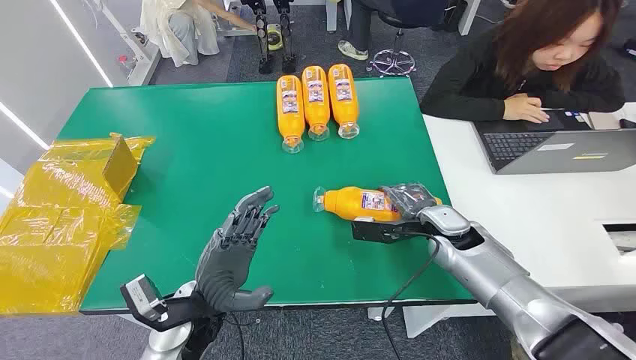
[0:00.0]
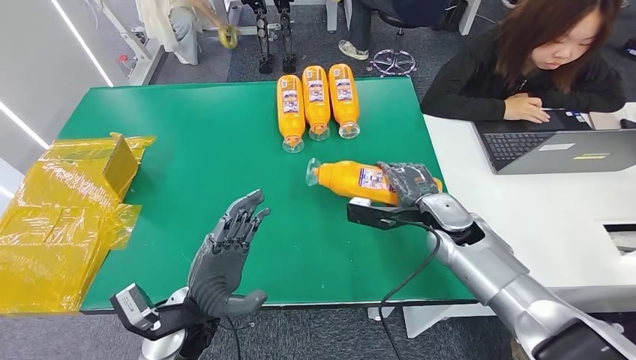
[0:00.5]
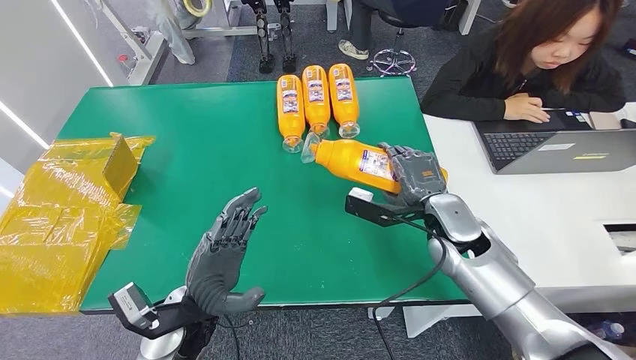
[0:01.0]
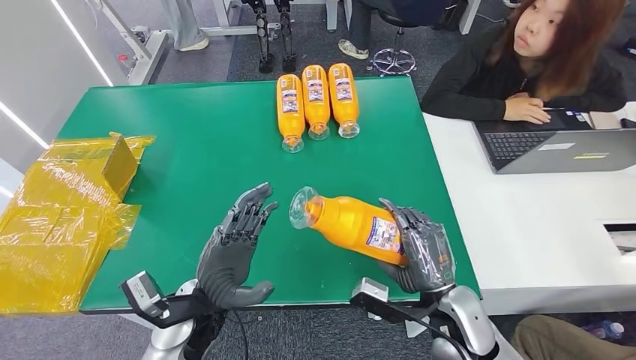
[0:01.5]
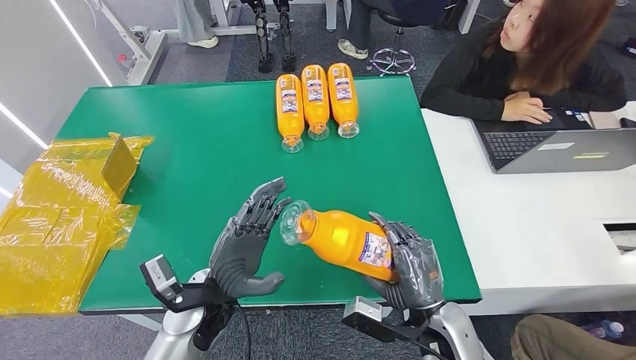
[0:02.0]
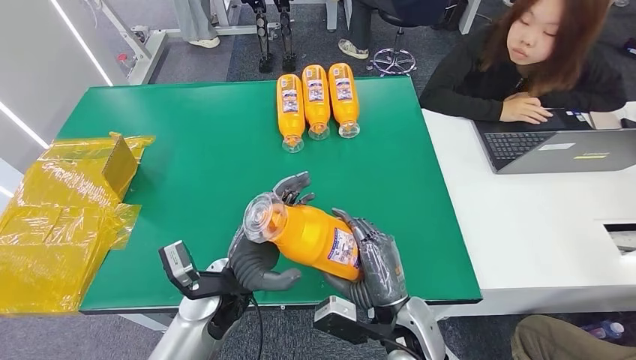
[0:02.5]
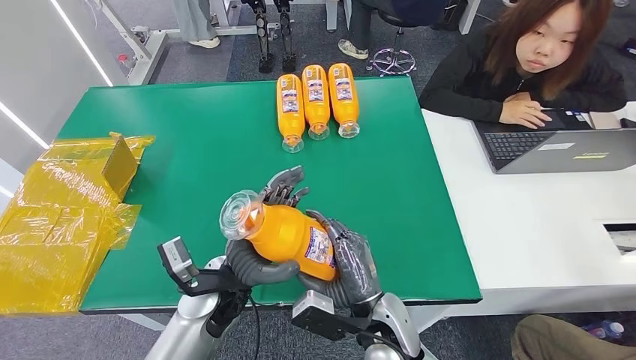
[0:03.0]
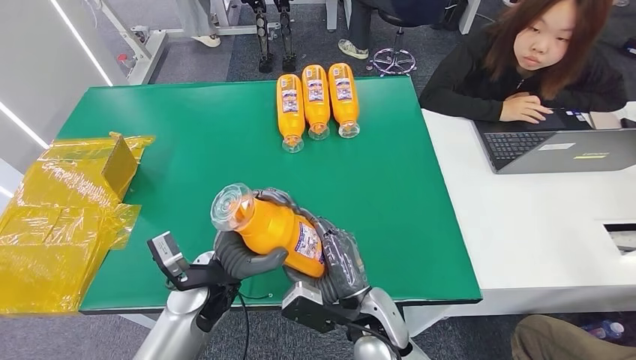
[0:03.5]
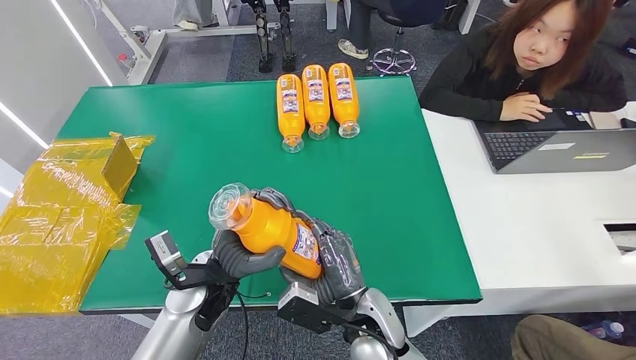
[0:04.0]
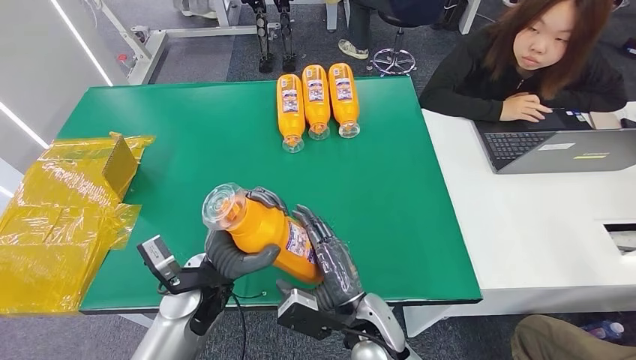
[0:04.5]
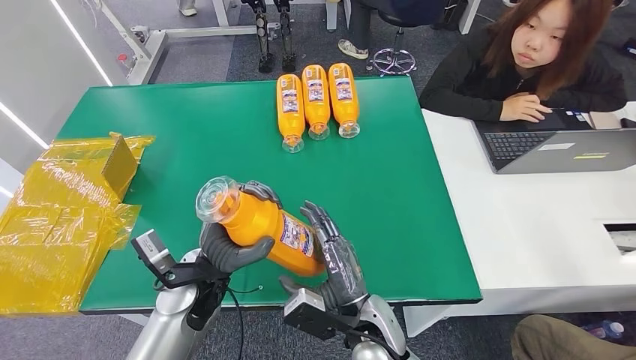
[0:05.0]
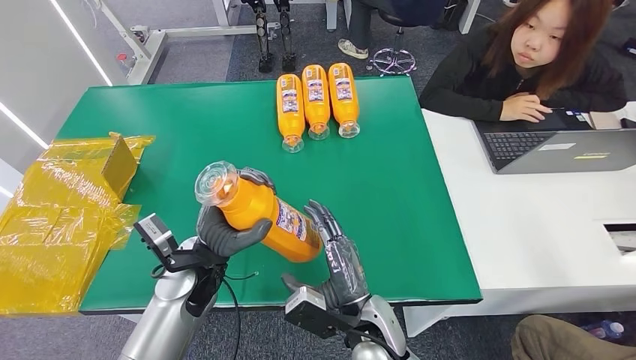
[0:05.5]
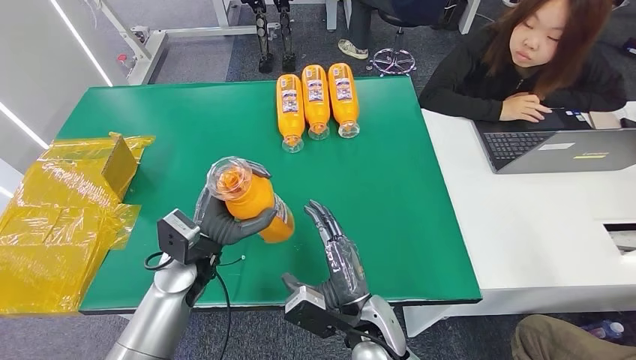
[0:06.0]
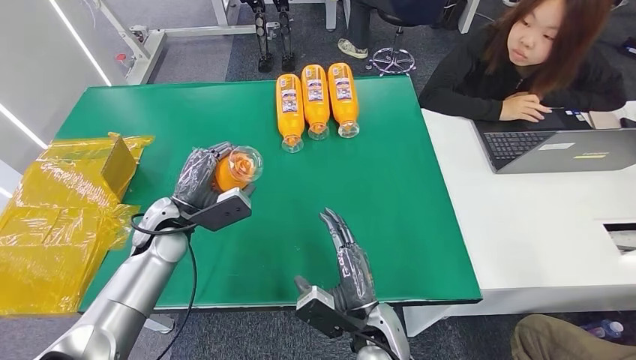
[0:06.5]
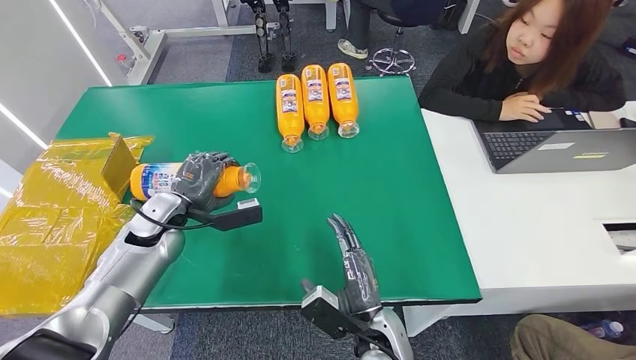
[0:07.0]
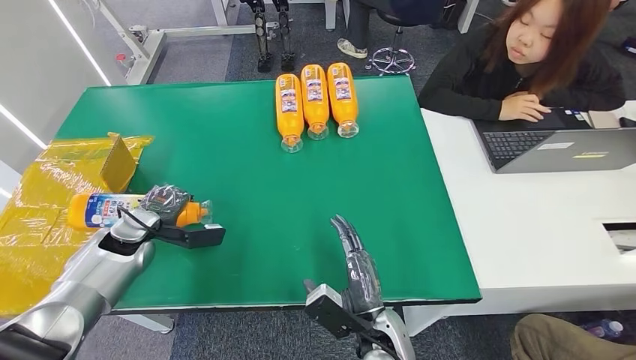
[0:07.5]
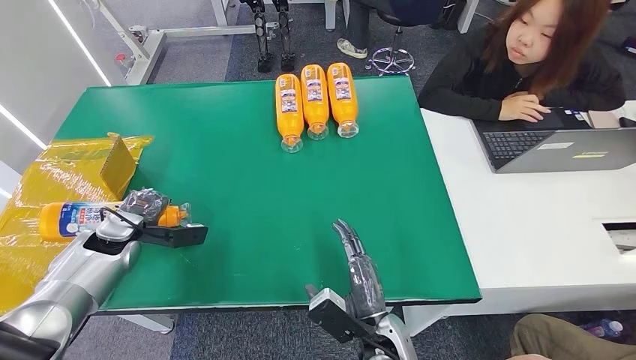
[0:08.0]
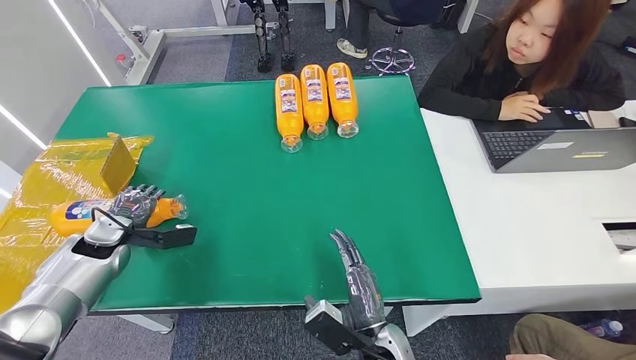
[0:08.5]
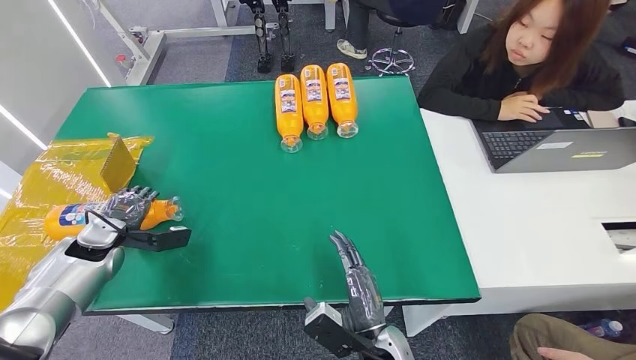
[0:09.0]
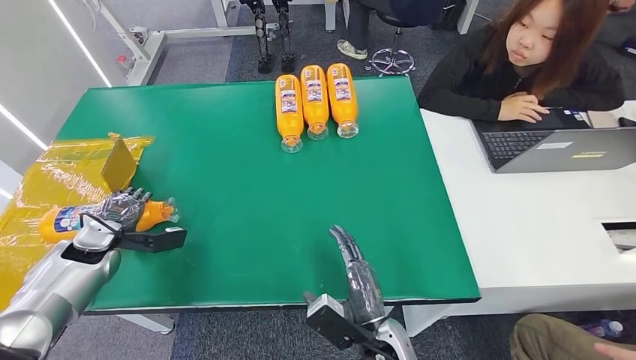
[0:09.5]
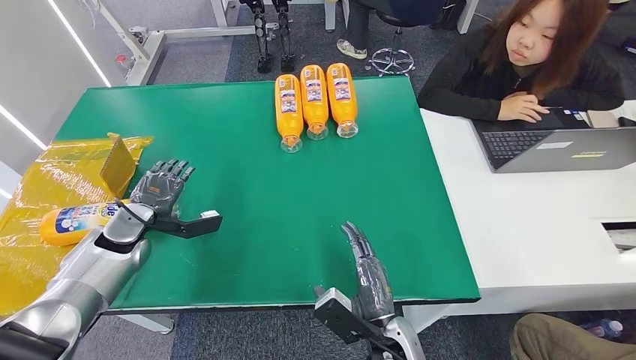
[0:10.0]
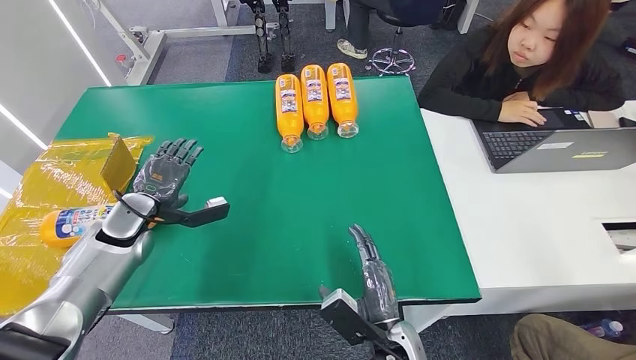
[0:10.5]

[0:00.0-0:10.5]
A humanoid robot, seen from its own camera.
Step, 0:00.0 to 0:05.0: Pick up the bottle from the table.
0:02.0 to 0:04.0: The right hand is displaced to the left by approximately 10 cm.
0:04.0 to 0:06.5: The left hand goes about 15 cm to the left and forward.
0:06.5 to 0:08.5: The left hand heads to the left, covering roughly 15 cm.
0:08.5 to 0:10.5: The left hand moves to the right, approximately 5 cm.

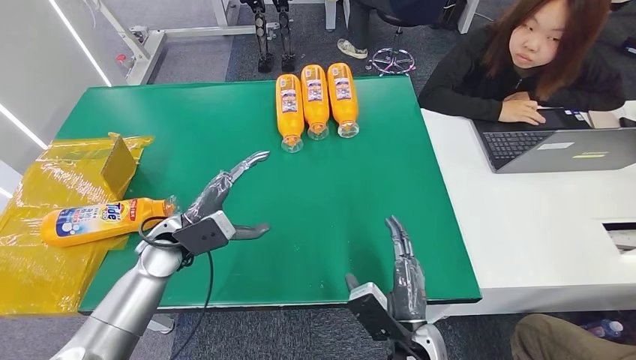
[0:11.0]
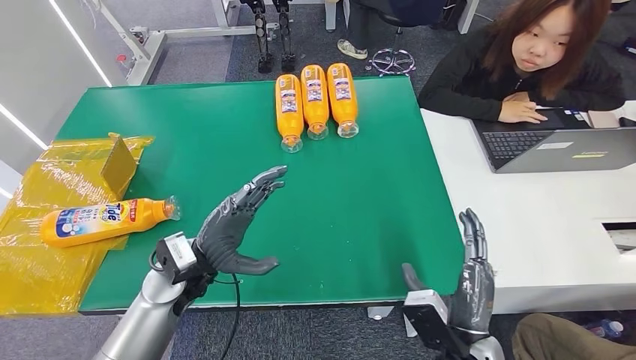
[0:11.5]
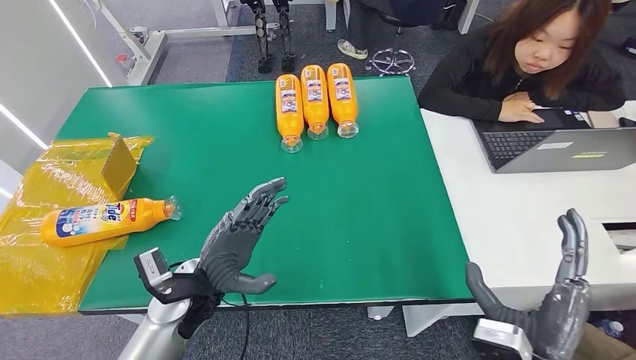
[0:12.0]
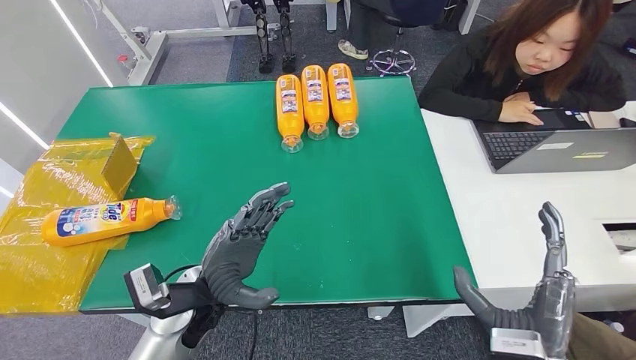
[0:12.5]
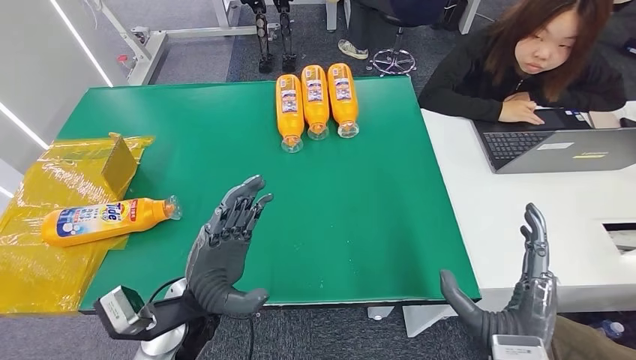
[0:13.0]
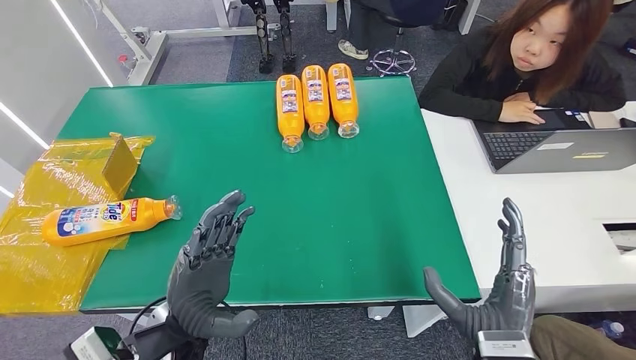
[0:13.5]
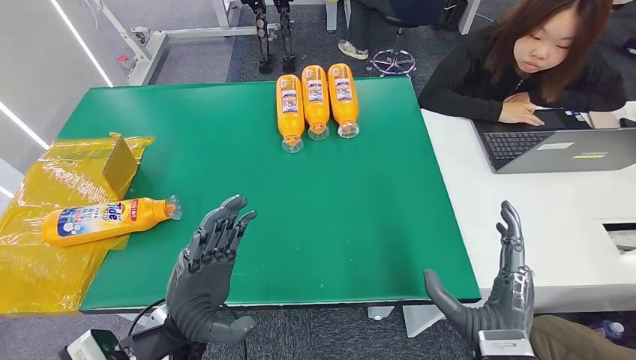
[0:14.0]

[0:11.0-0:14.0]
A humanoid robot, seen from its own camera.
Step, 0:11.0 to 0:14.0: Turn the bottle to the front side.
0:11.0 to 0:12.5: The left hand moves backward and to the right, roughly 10 cm, while the right hand is displaced to the right and upward by approximately 15 cm.
0:12.5 to 0:14.0: The left hand travels backward by approximately 5 cm.

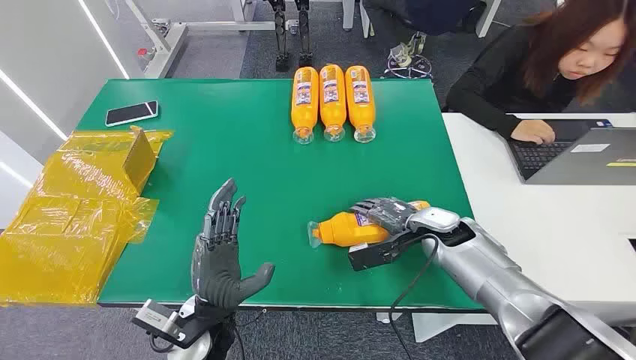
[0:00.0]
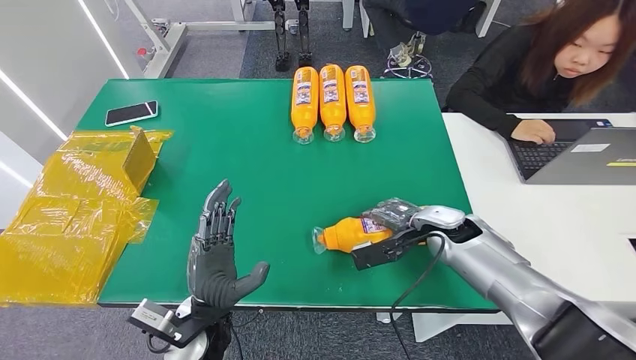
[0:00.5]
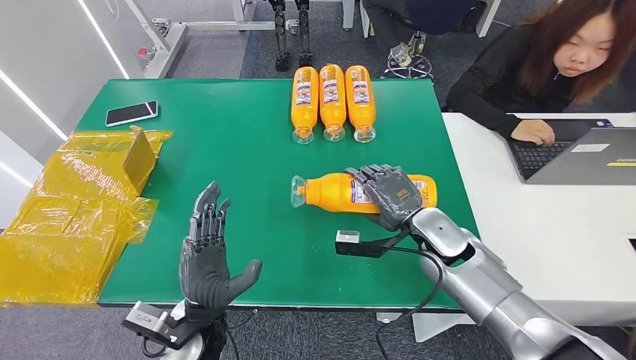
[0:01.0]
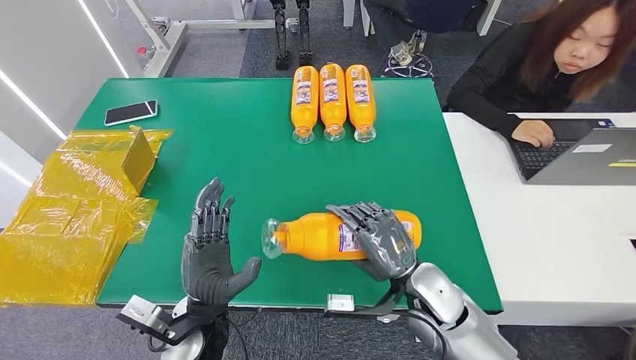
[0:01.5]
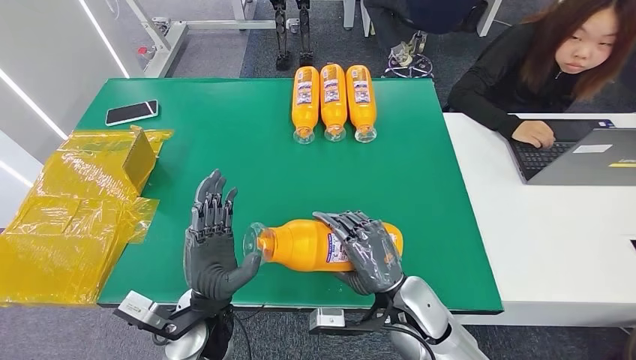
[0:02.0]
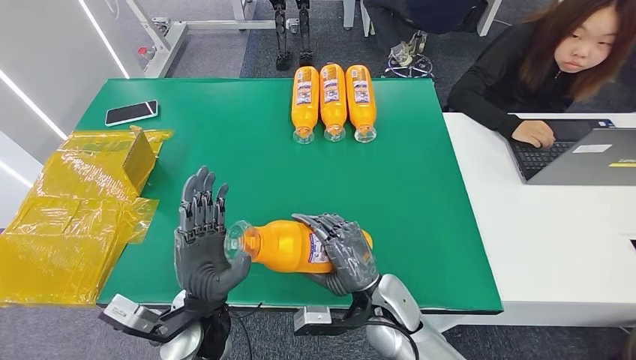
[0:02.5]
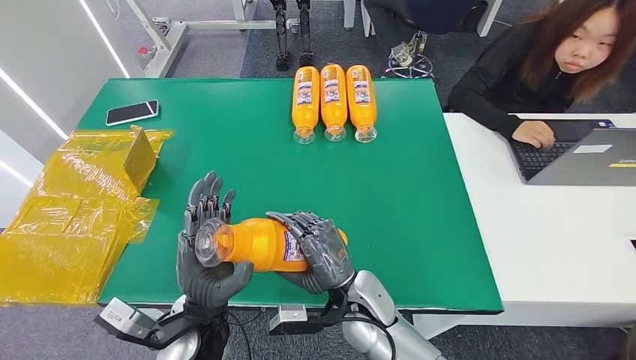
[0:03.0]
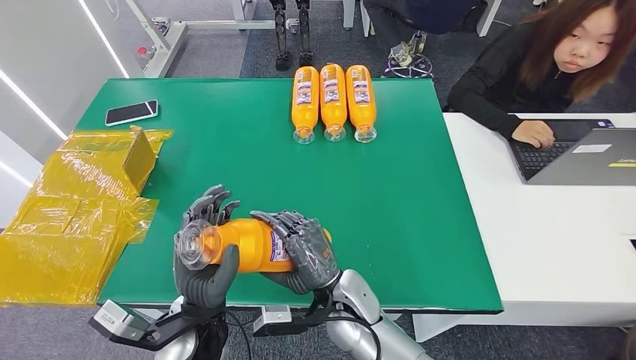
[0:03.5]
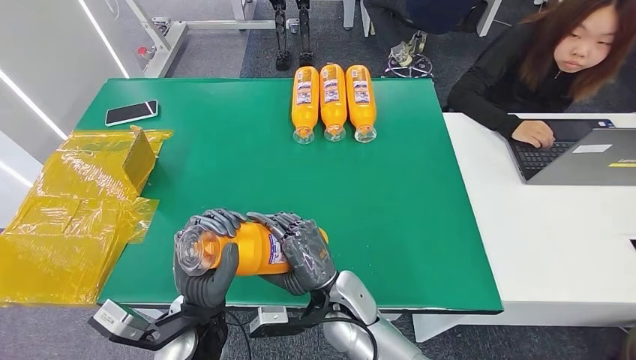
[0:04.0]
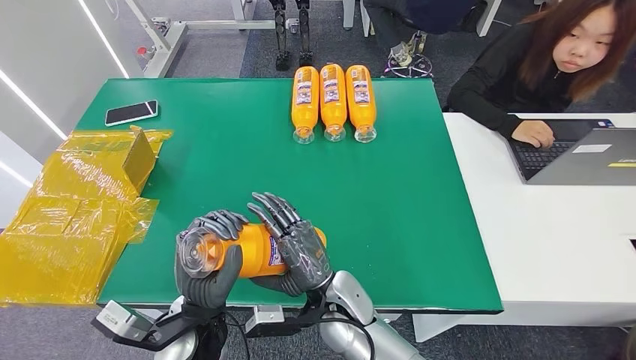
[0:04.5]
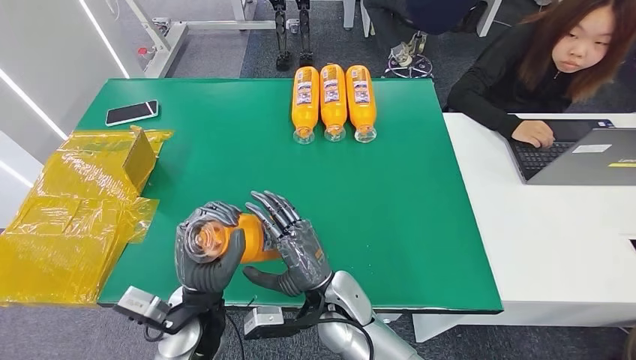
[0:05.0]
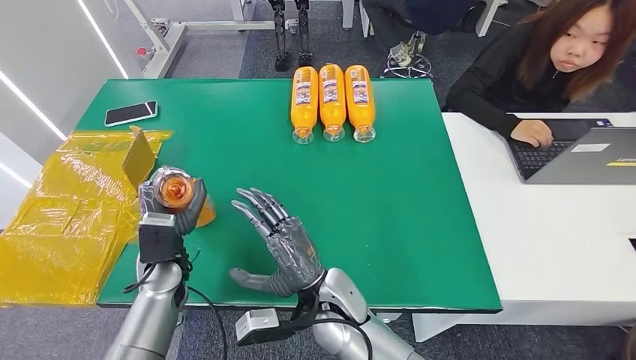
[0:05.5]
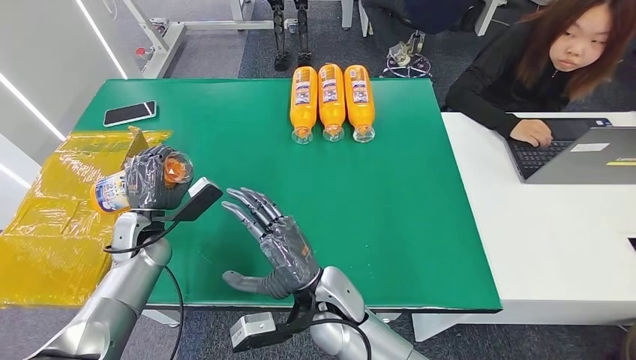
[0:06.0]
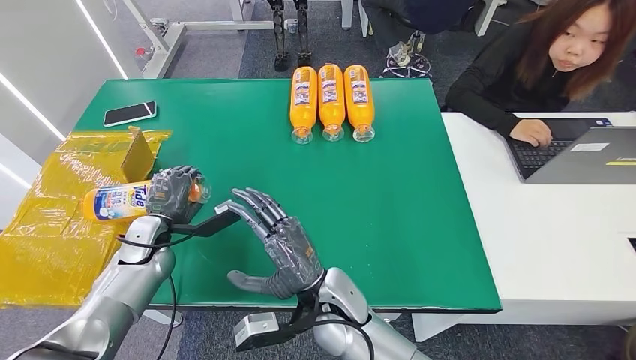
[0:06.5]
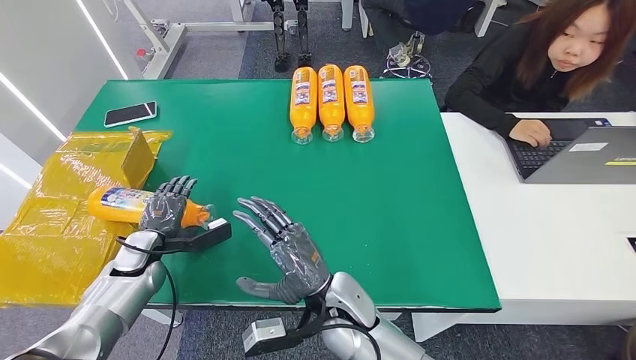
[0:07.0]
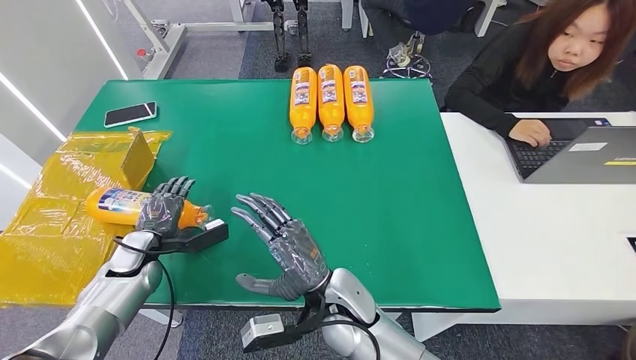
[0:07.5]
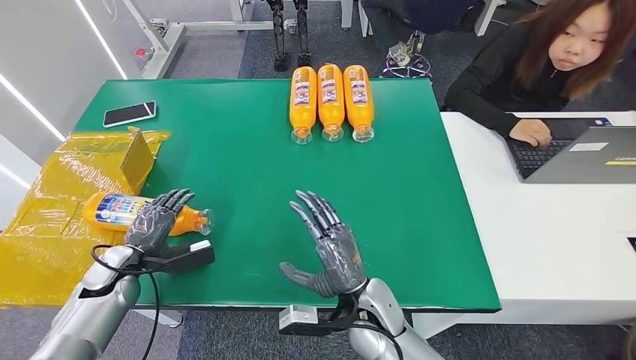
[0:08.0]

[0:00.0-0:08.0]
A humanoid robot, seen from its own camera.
Step, 0:00.0 to 0:02.5: Pick up the bottle from the table.
Step, 0:03.0 to 0:08.0: Turn the bottle to the front side.
0:02.0 to 0:04.0: The right hand heads to the left, covering roughly 10 cm.
0:04.0 to 0:06.0: The left hand goes approximately 25 cm to the left and forward.
0:06.0 to 0:08.0: The left hand goes about 10 cm to the left and backward; the right hand travels to the right by about 5 cm.
